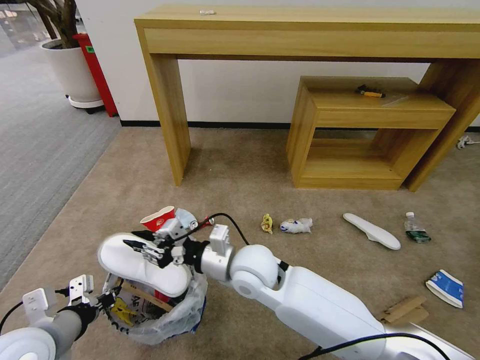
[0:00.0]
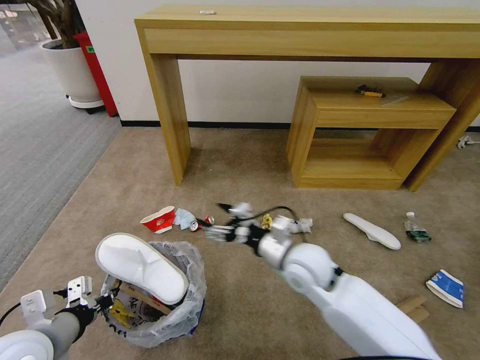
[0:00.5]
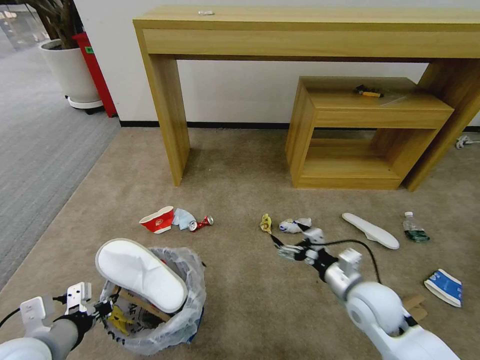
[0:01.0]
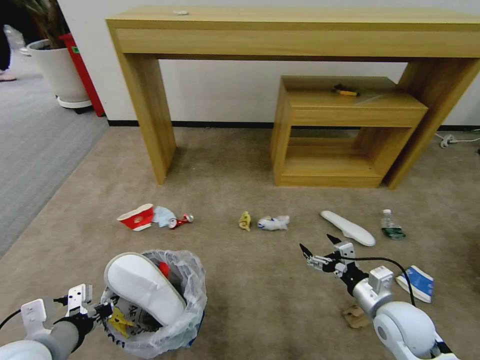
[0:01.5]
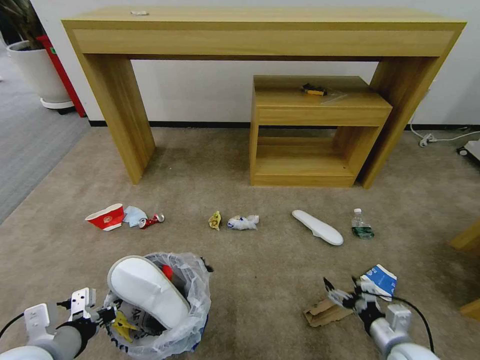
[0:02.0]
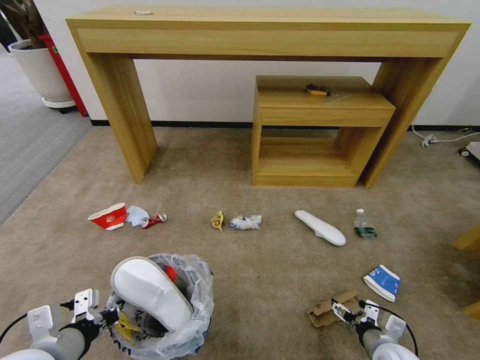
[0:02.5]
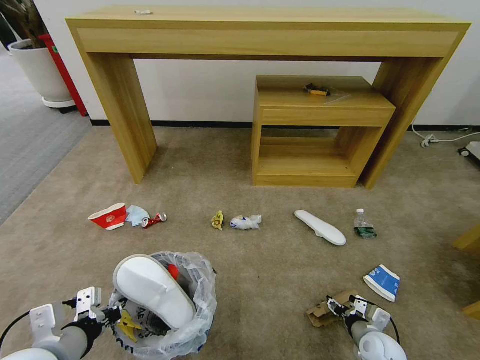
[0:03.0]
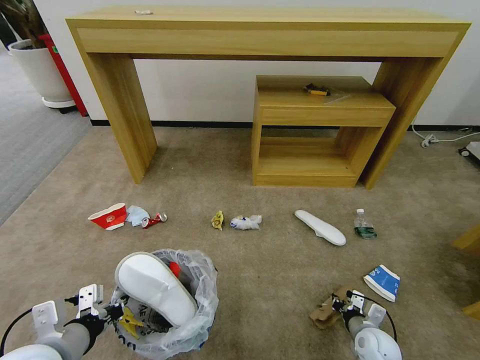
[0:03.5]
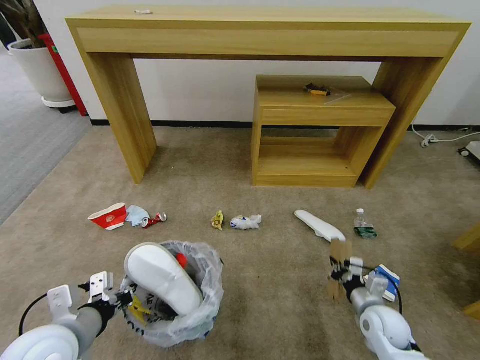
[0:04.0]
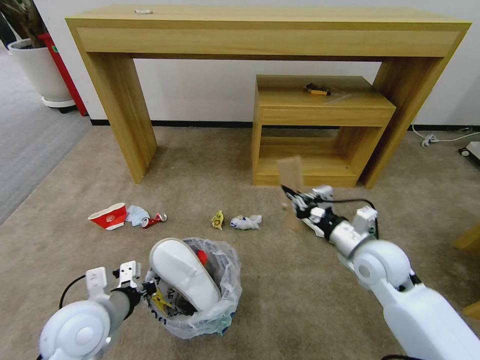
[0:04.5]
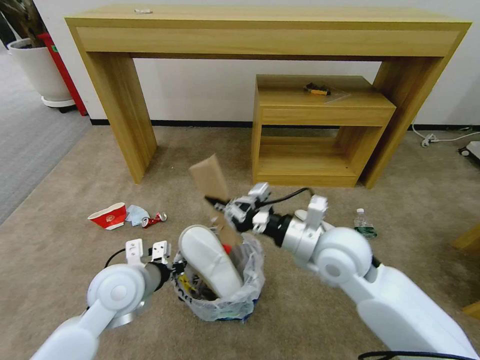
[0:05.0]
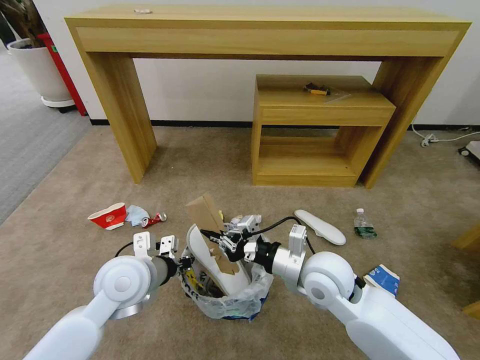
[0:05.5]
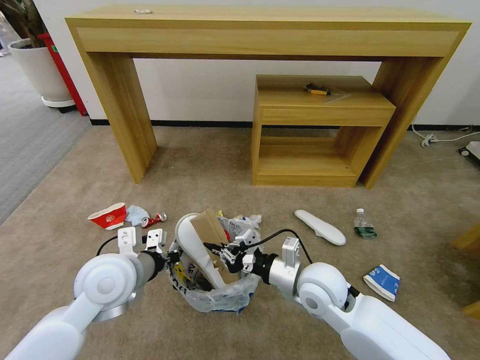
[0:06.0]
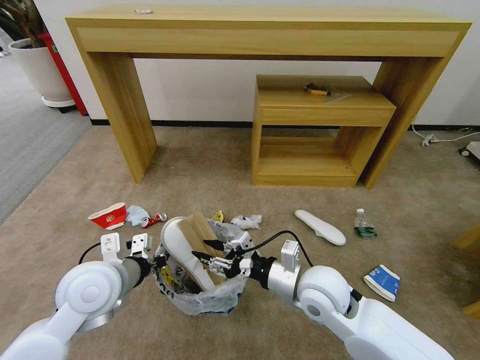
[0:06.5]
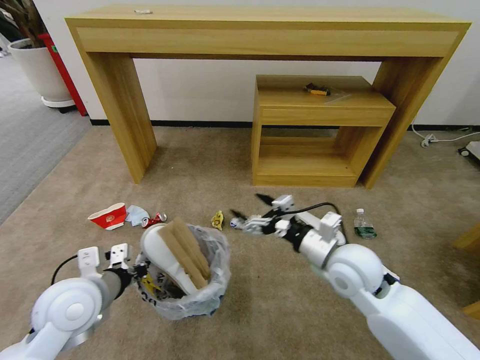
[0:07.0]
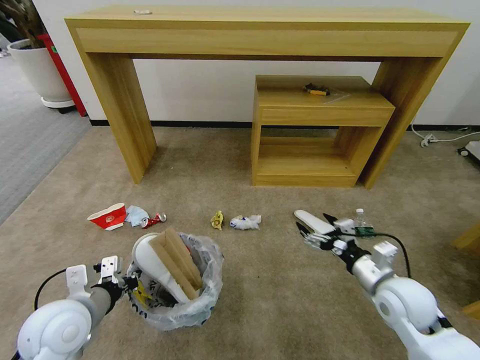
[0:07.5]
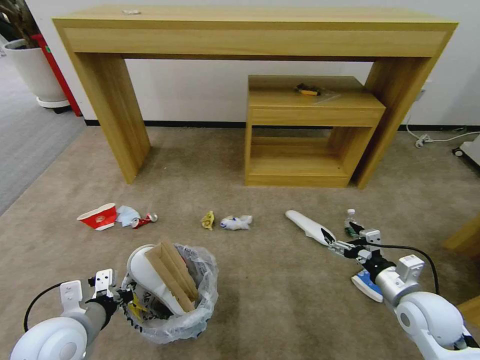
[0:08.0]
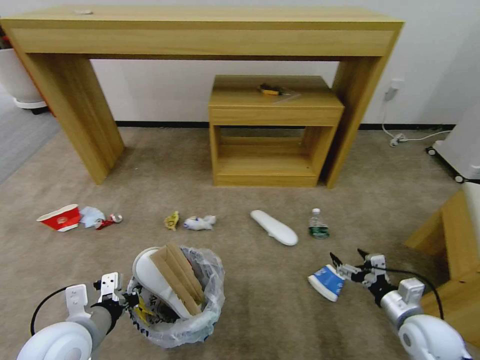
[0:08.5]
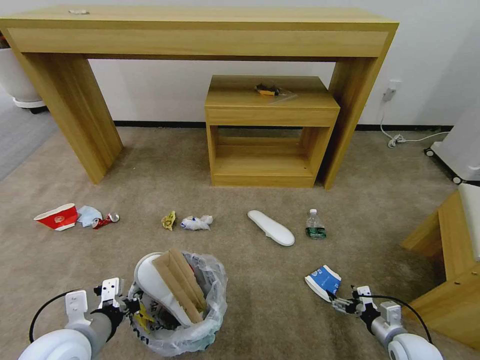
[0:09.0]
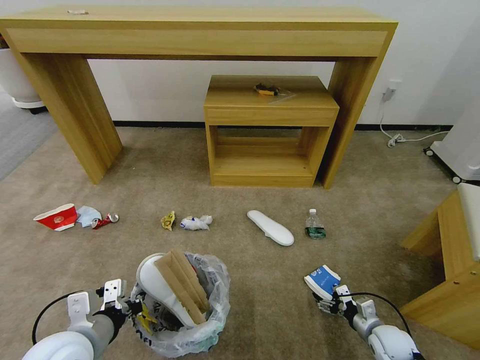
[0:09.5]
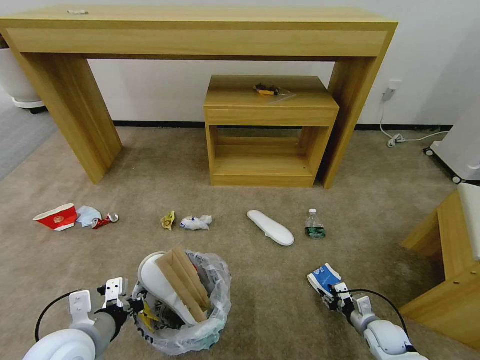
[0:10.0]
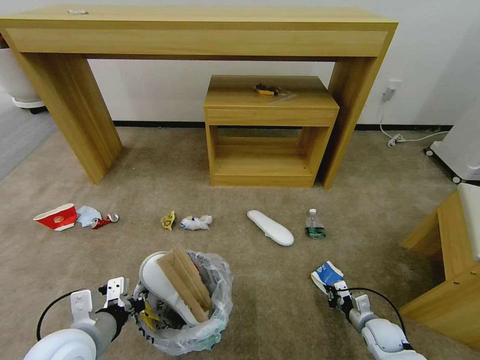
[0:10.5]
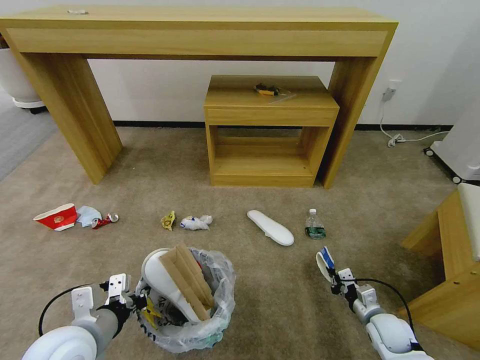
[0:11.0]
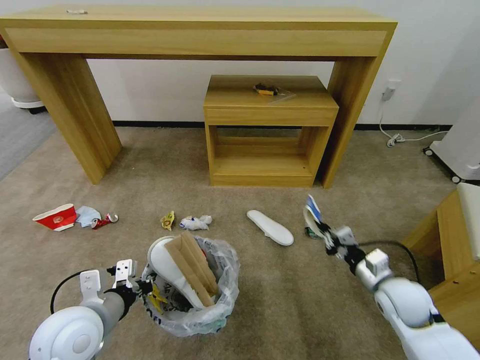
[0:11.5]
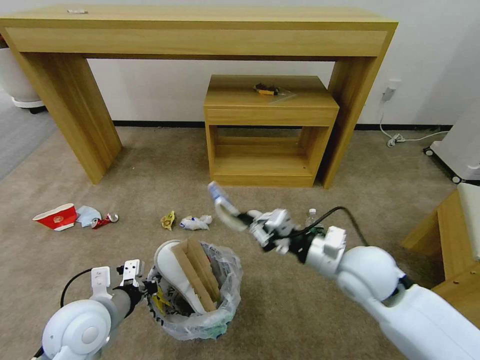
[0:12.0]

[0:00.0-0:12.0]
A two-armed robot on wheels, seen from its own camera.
Task of the whole recording: Pick up the trash bin and place the garbage on the floor into it.
0:00.0 to 0:02.0: The right gripper is displaced to the right, downward and backward by about 40 cm, and opens its fingers.
0:02.0 to 0:04.0: The right gripper travels forward by about 10 cm, moves roughly 10 cm downward and comes back, and closes its fingers.
0:04.0 to 0:06.0: The right gripper travels to the left and upward by some 25 cm. The left gripper moves forward and to the right, approximately 15 cm.
0:06.0 to 0:08.0: The left gripper shifts roughly 15 cm backward, to the left and downward. The right gripper goes approximately 20 cm to the right, and opens up.
0:08.0 to 0:10.0: The right gripper goes roughly 20 cm downward, and closes up.
0:10.0 to 0:12.0: The right gripper moves upward and to the left, roughly 35 cm, and closes.

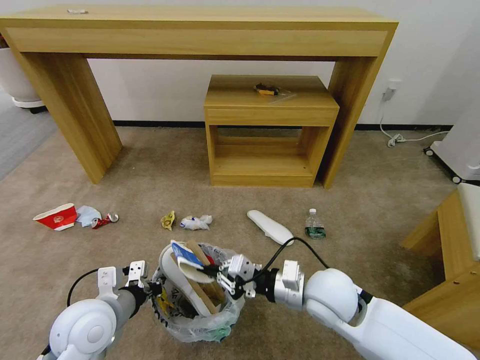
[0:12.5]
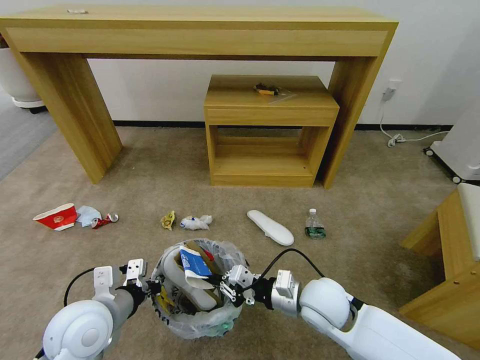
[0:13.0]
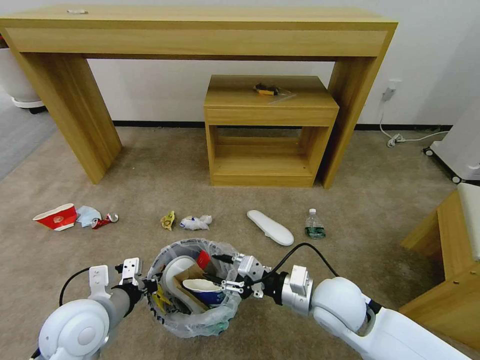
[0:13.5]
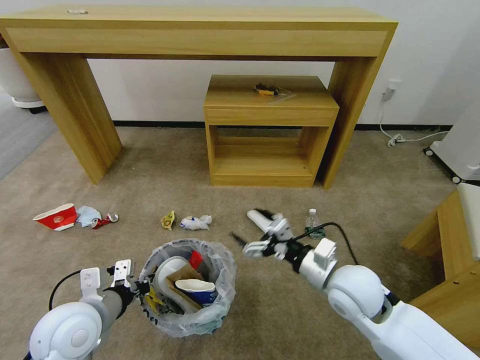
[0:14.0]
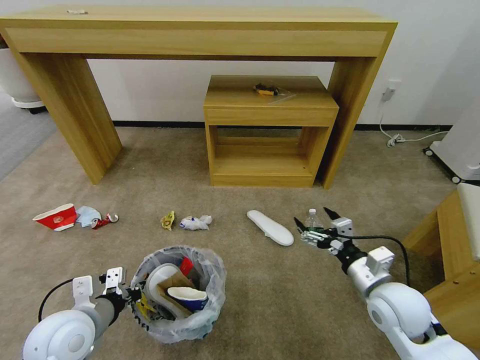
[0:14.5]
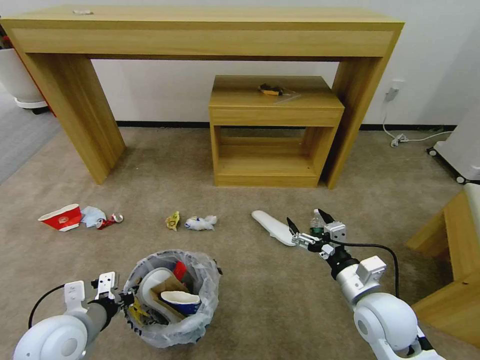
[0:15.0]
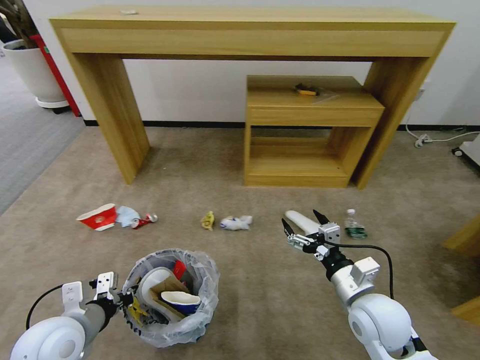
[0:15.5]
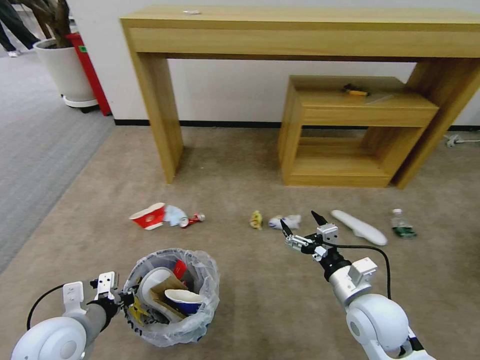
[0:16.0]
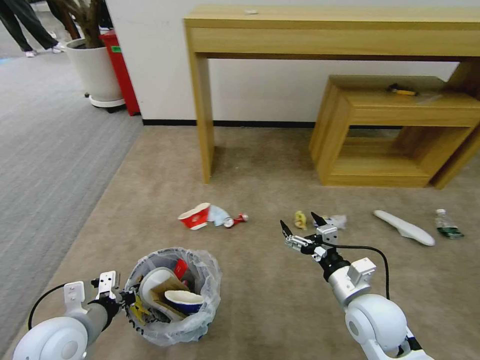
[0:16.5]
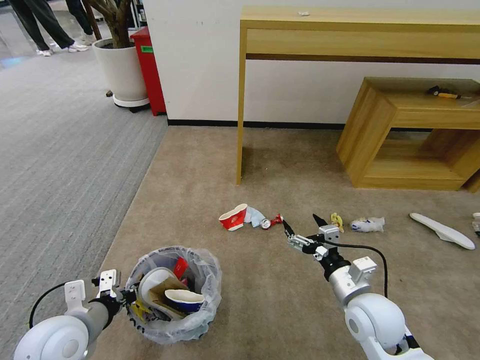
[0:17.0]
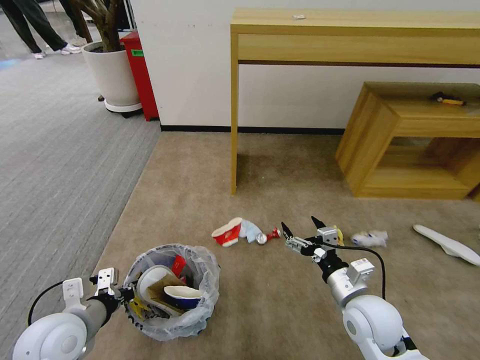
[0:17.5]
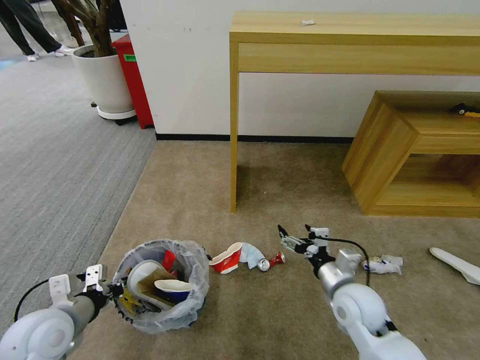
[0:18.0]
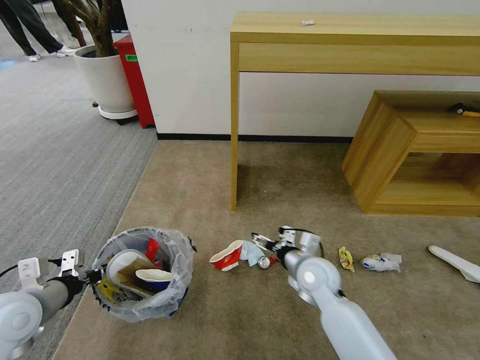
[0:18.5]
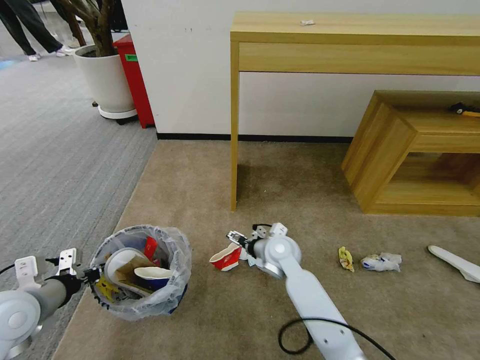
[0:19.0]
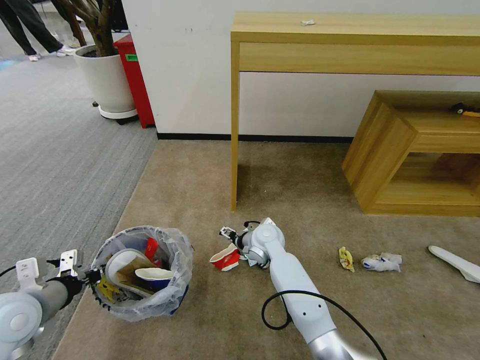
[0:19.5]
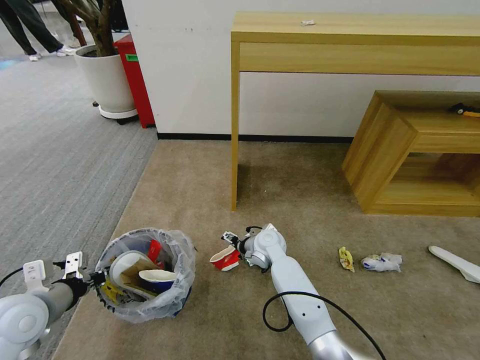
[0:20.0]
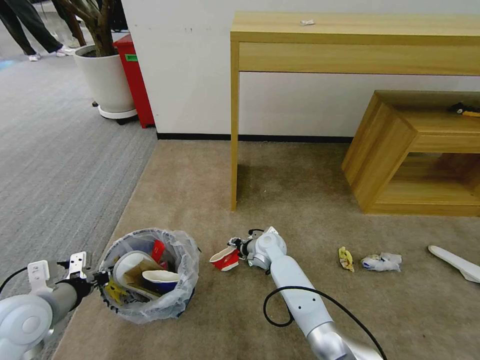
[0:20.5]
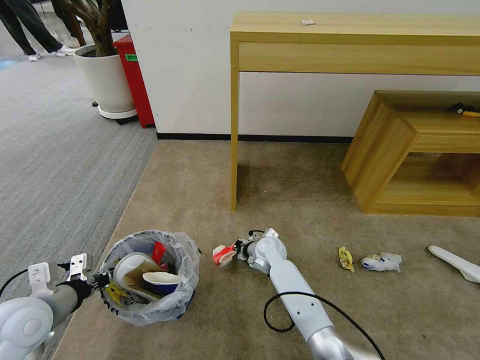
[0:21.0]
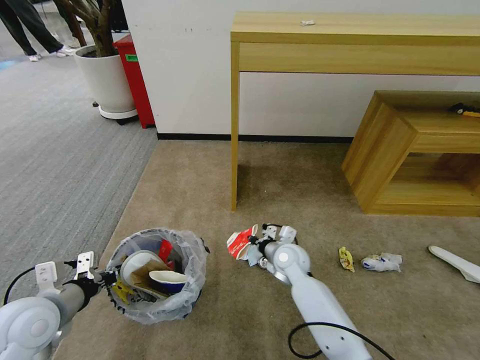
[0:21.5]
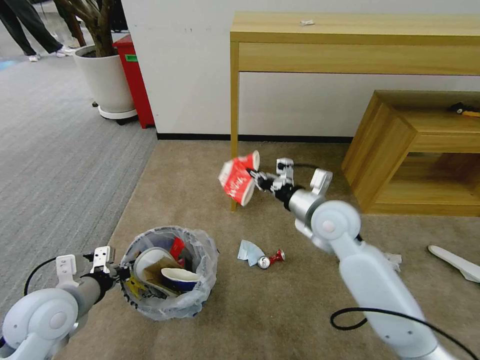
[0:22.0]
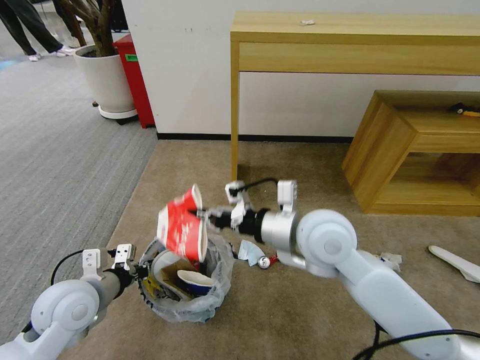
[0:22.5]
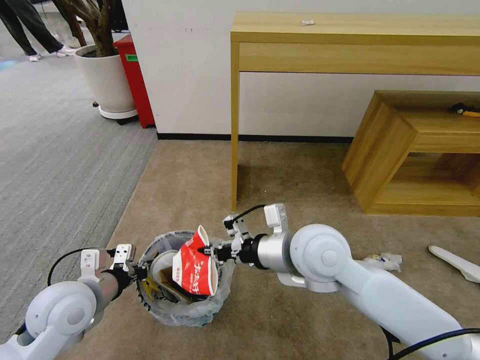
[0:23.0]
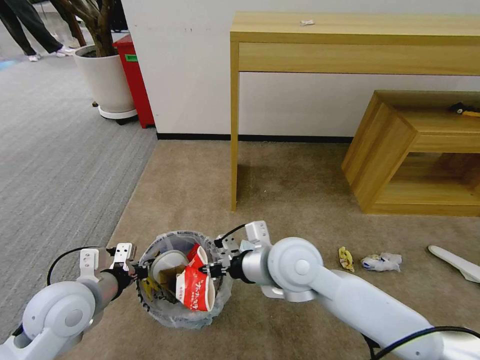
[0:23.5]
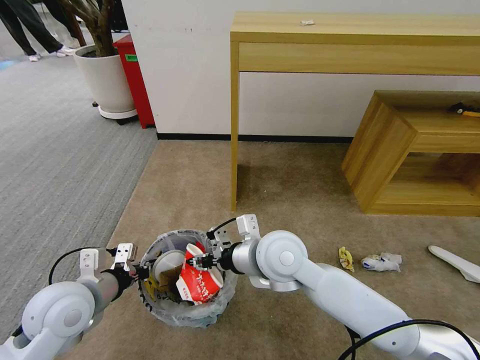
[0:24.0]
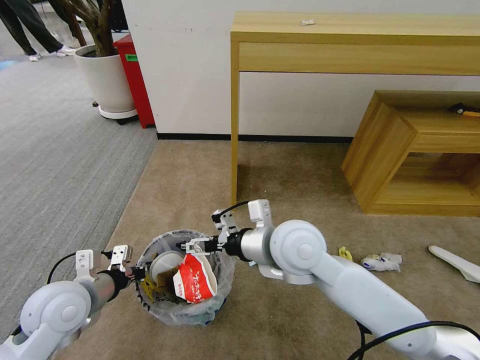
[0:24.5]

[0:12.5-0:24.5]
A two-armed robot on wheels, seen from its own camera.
Task of the whole recording: Pick up the trash bin and place the garbage on the floor into it.
0:12.5 to 0:14.5: The right gripper moves to the right, about 15 cm, and opens up.
0:14.5 to 0:16.5: The right gripper ends up some 5 cm from where it was.
0:16.5 to 0:18.5: The left gripper is displaced to the left by roughly 10 cm. The right gripper goes some 10 cm forward and to the left.
0:18.5 to 0:20.5: The right gripper moves forward, to the left and downward, about 20 cm, and closes.
0:20.5 to 0:22.5: The left gripper moves to the right, approximately 5 cm; the right gripper shifts some 30 cm upward and backward, and closes.
0:22.5 to 0:24.5: The right gripper opens its fingers.

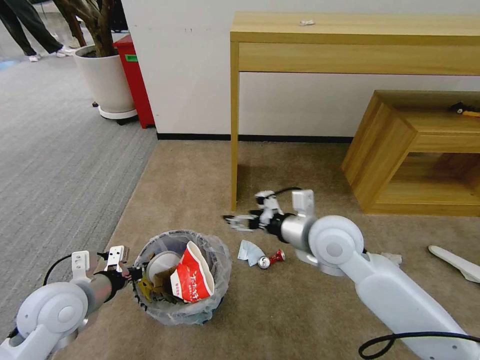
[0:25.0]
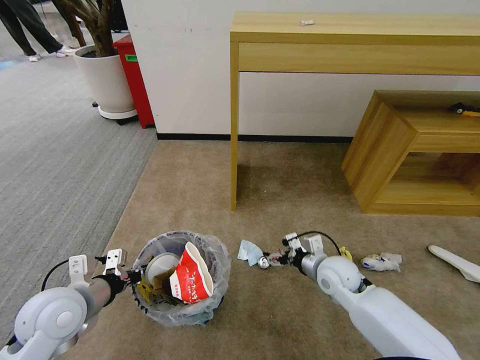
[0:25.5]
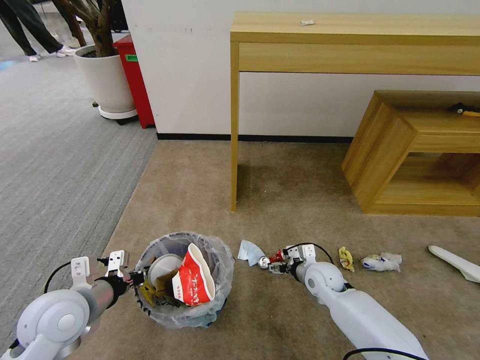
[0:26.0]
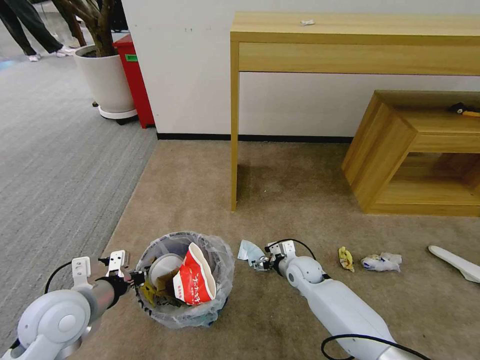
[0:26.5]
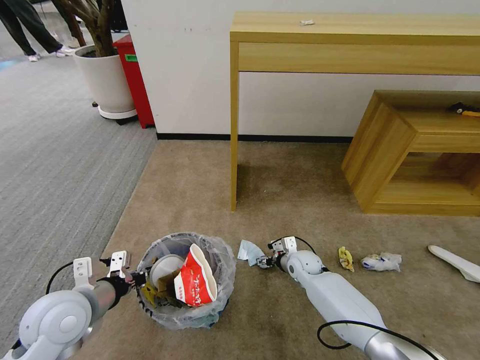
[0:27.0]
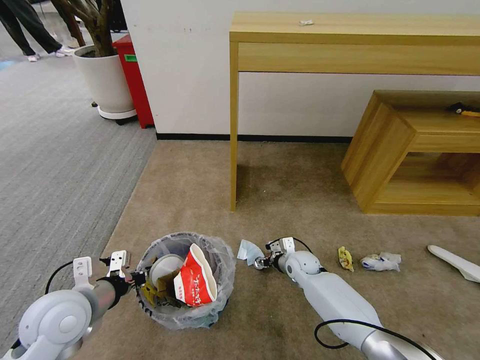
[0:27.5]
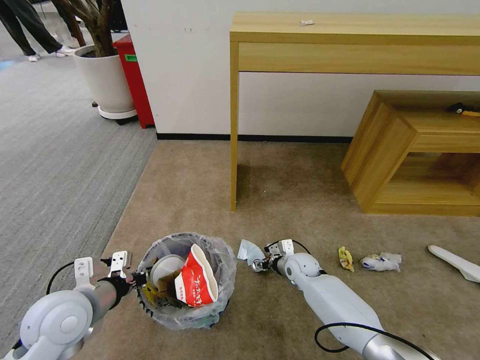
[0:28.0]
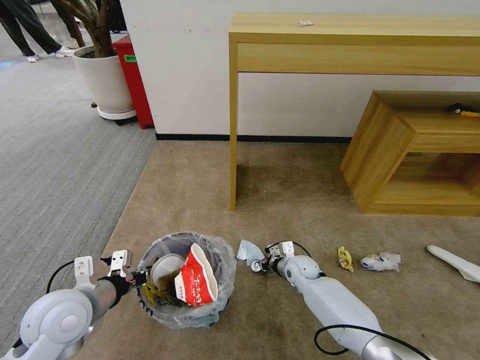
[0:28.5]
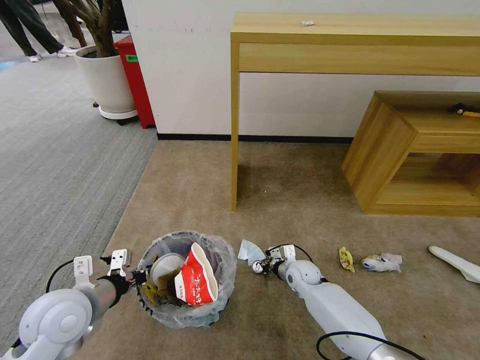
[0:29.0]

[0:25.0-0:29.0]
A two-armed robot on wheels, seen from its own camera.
Task of the whole recording: Pick up the trash bin and place the garbage on the floor into it.
0:25.0 to 0:27.0: The right gripper is displaced downward by approximately 30 cm.
0:27.0 to 0:29.0: The right gripper closes up.
